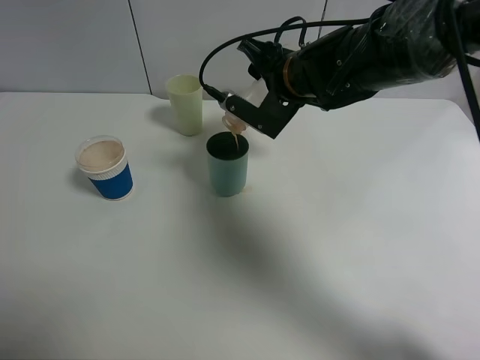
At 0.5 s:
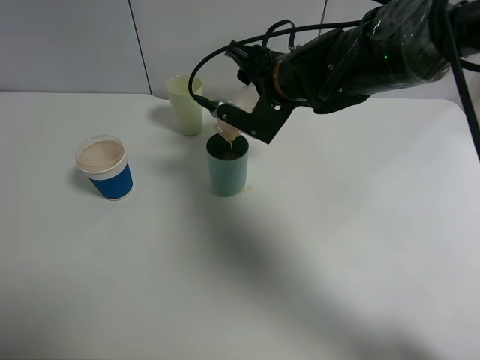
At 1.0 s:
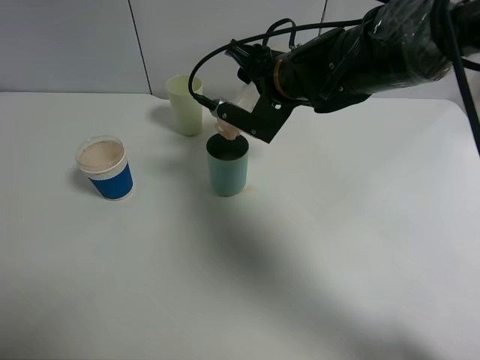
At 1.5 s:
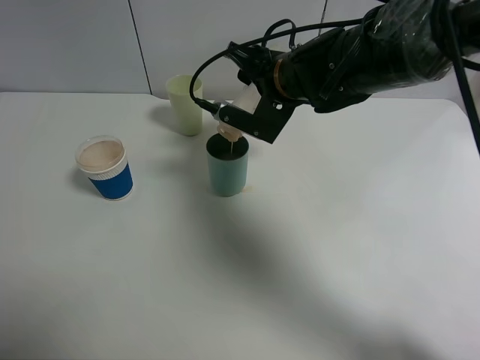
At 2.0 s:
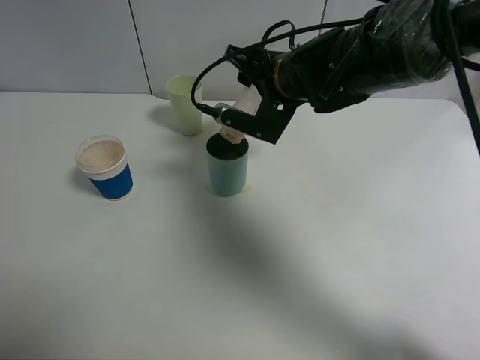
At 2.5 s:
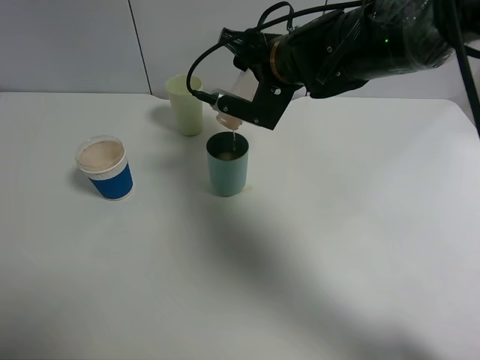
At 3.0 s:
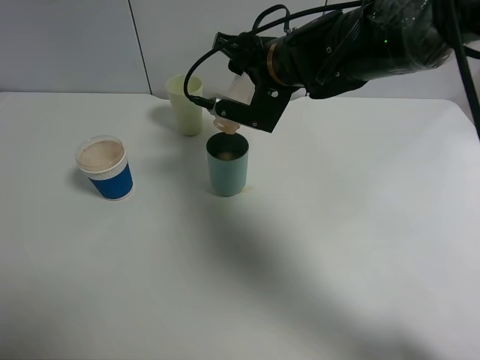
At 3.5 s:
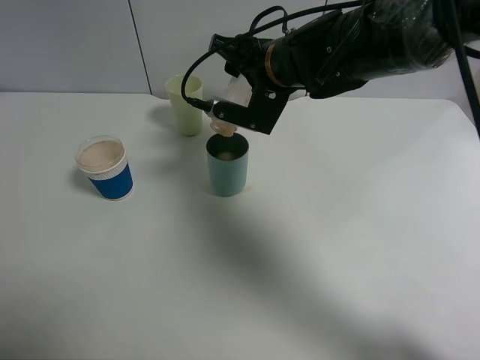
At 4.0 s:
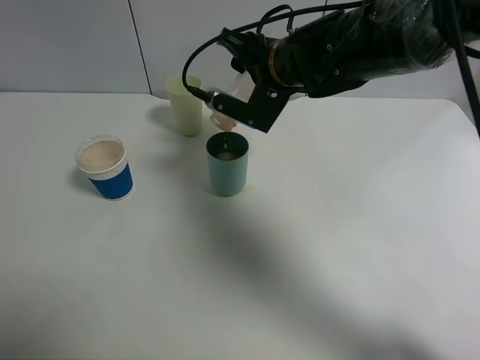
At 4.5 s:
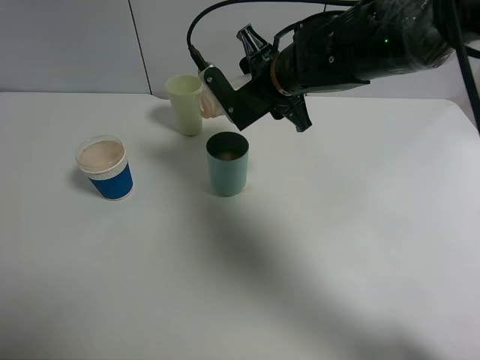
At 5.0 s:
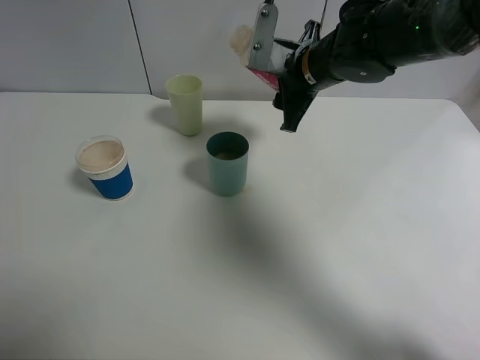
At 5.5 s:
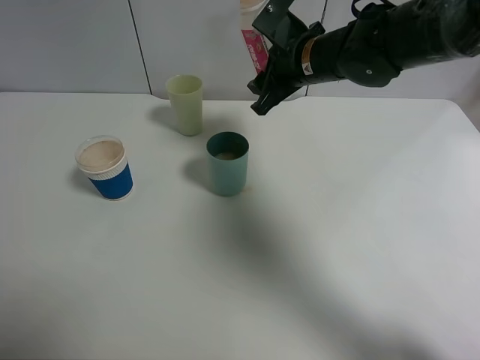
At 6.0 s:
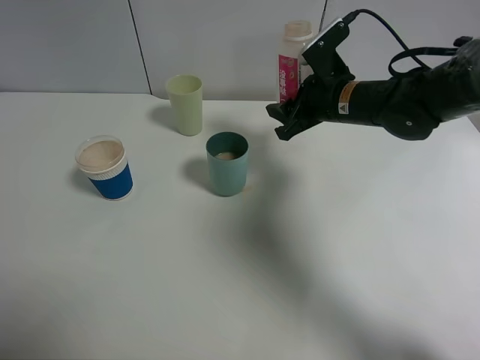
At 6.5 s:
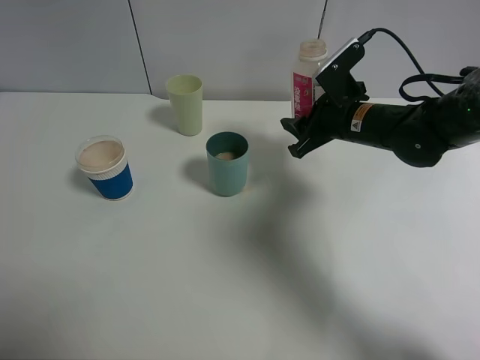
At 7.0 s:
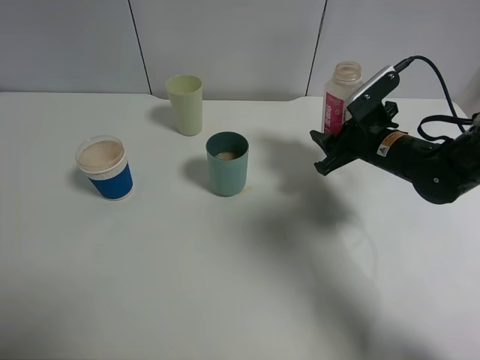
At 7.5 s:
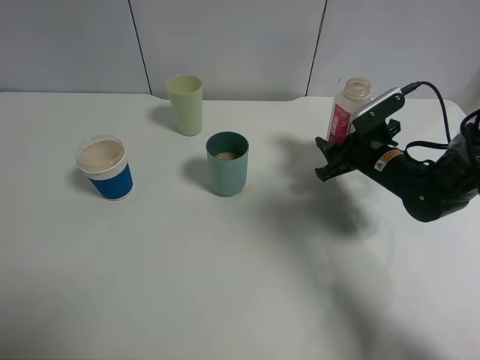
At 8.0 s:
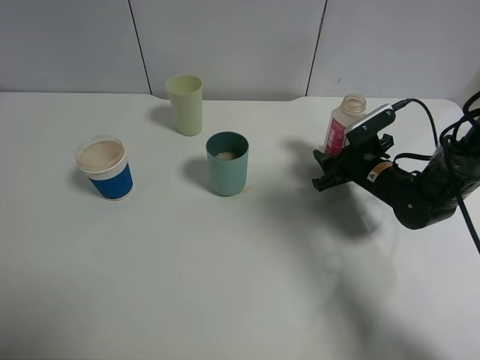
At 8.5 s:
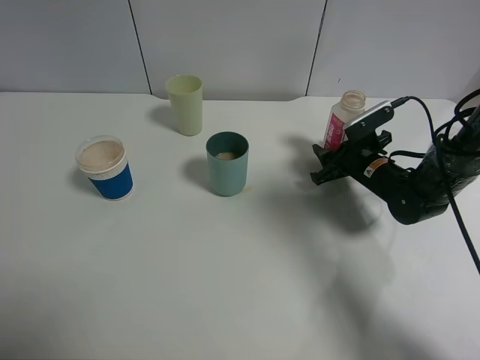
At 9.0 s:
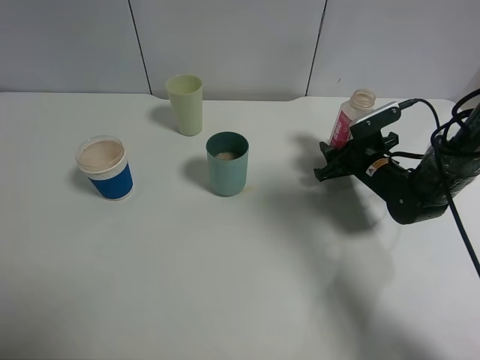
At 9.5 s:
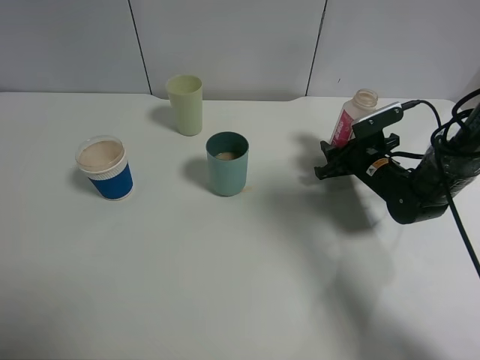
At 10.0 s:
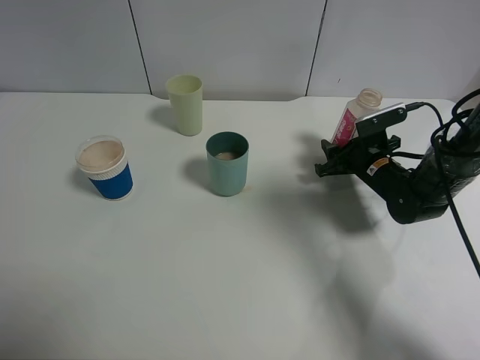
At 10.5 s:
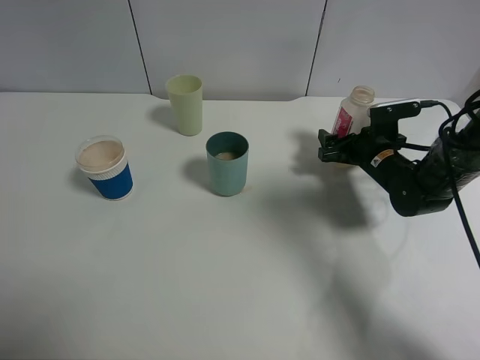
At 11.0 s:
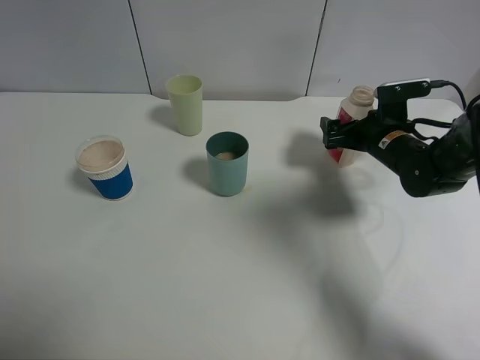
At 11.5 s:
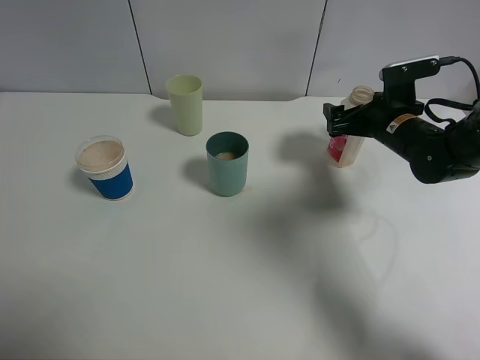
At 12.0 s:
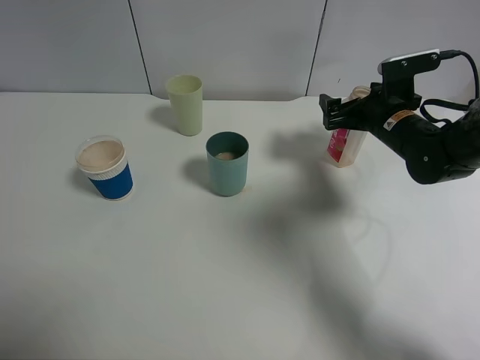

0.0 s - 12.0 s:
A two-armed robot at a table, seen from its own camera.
Task of the whole recording: use a clamp to hold the bottle of the drink, pour the beverage into a random cup, then clamp the cup containing the drink and pour the drink into another random cup.
Step, 0.0 s - 5.0 s: Pour the drink into the blue plastic cup with right gripper.
Step, 5.5 s - 11.5 s: Place the drink bottle on the table with right gripper.
0.0 s - 4.0 s: The grippers move only a little.
4.0 s - 6.0 s: The right gripper heads to the right and downward, covering roughly 10 cm.
6.0 s - 8.0 s: The right gripper heads downward and to the right, covering approximately 15 cm.
8.0 s - 10.0 s: The grippers move only a little.
10.0 s - 12.0 s: The right gripper travels upward by roughly 10 cm, and opens.

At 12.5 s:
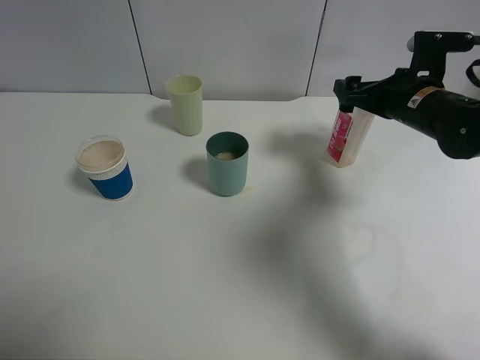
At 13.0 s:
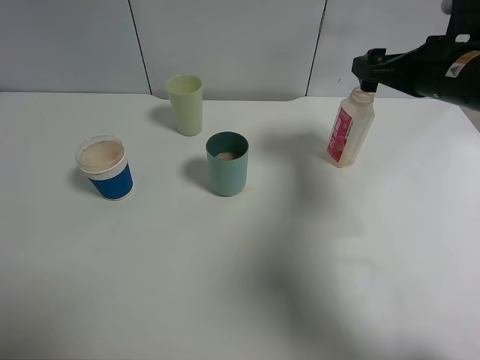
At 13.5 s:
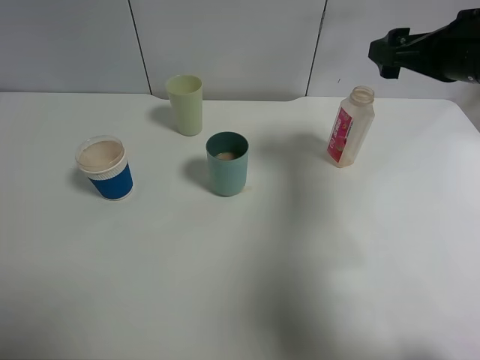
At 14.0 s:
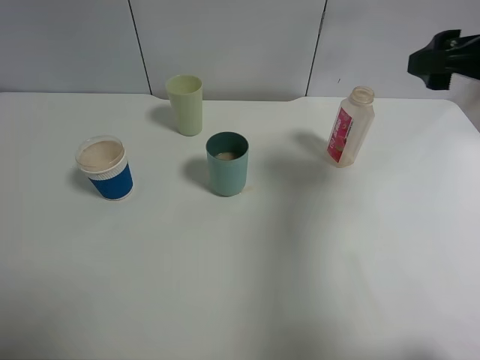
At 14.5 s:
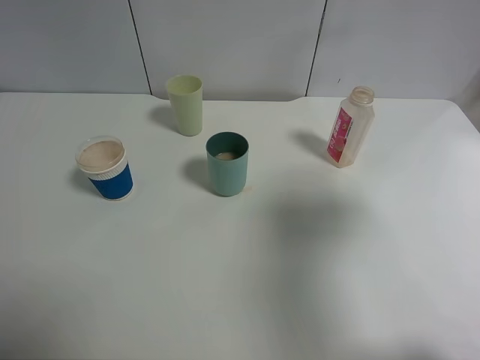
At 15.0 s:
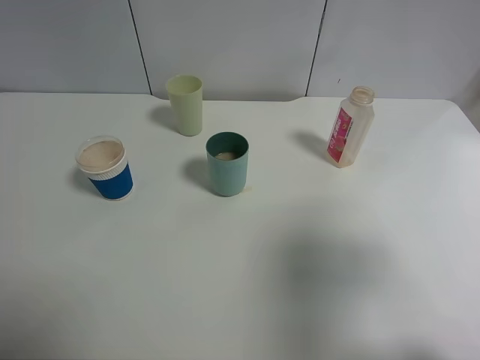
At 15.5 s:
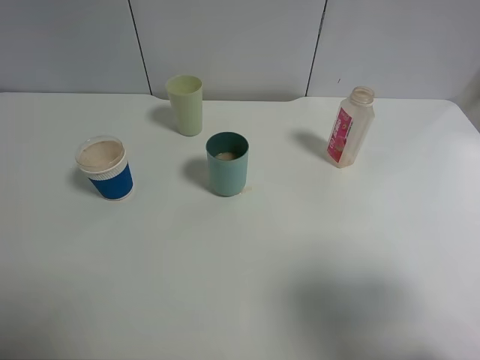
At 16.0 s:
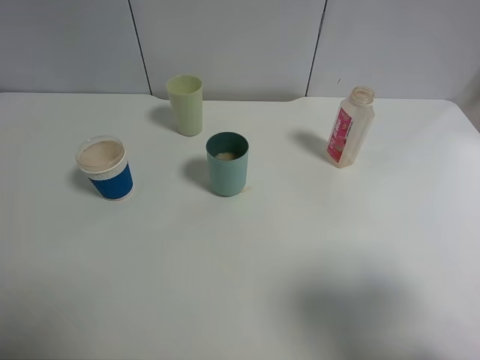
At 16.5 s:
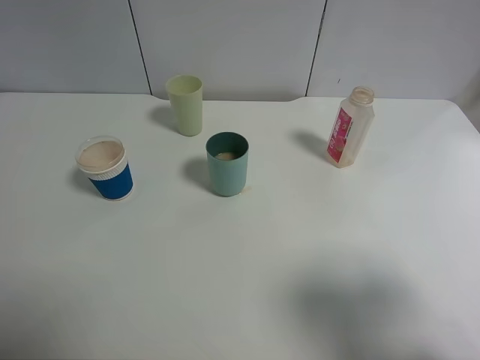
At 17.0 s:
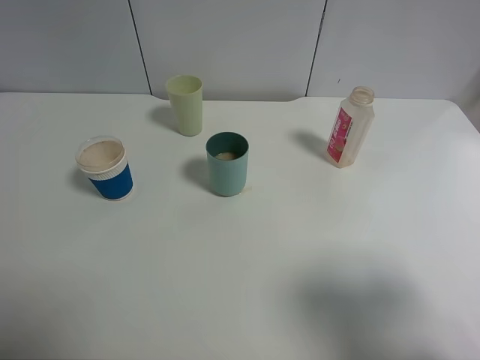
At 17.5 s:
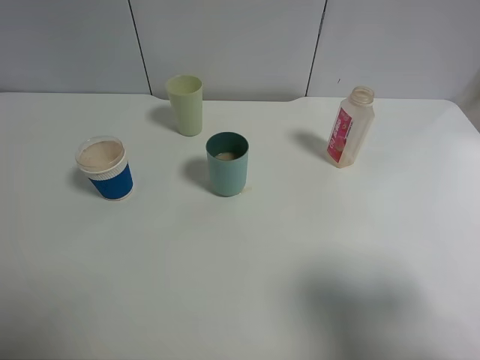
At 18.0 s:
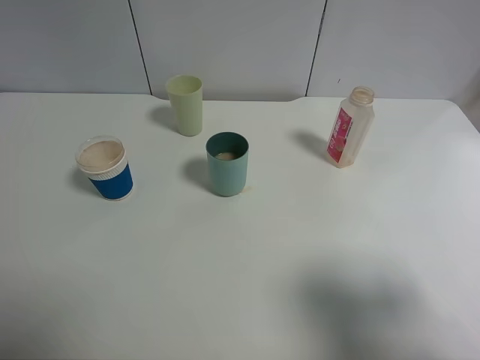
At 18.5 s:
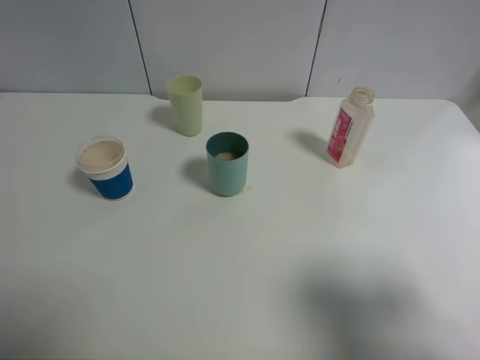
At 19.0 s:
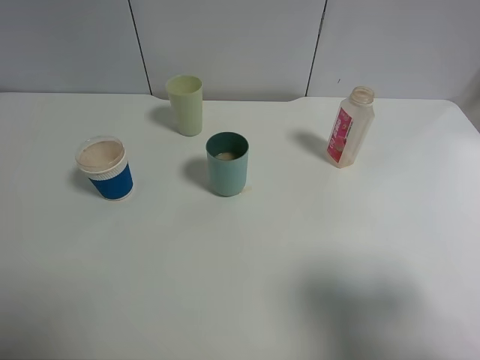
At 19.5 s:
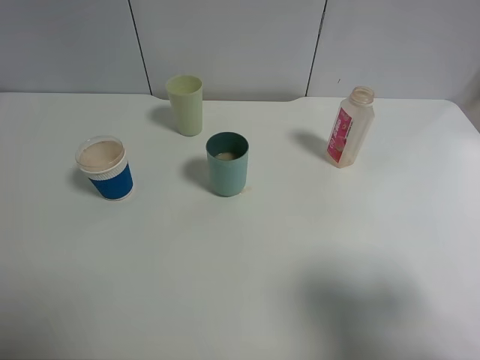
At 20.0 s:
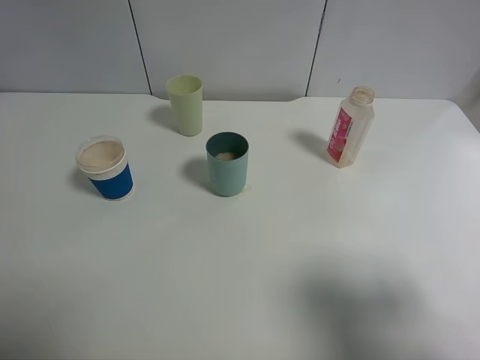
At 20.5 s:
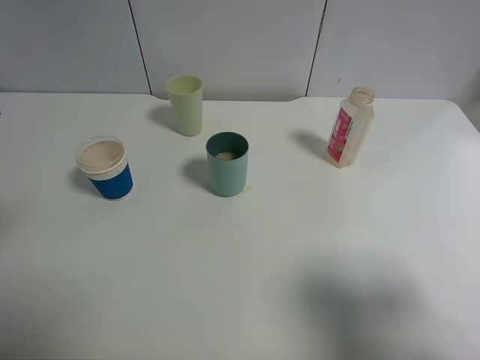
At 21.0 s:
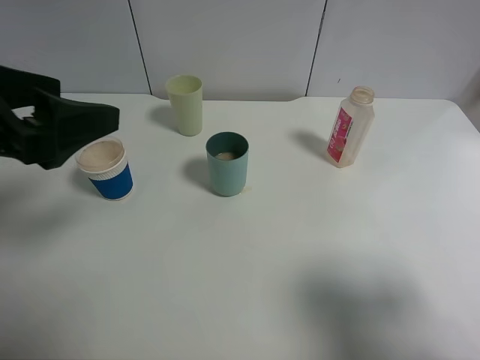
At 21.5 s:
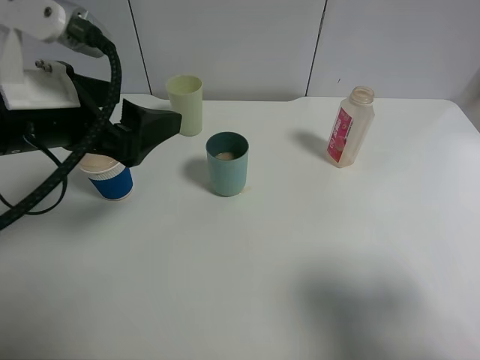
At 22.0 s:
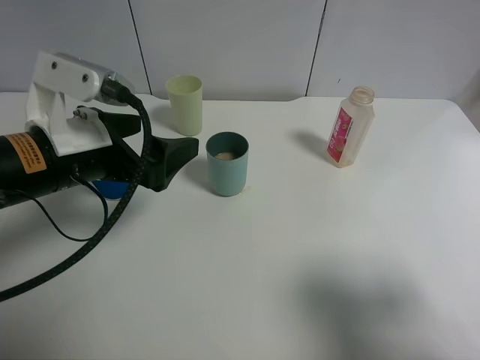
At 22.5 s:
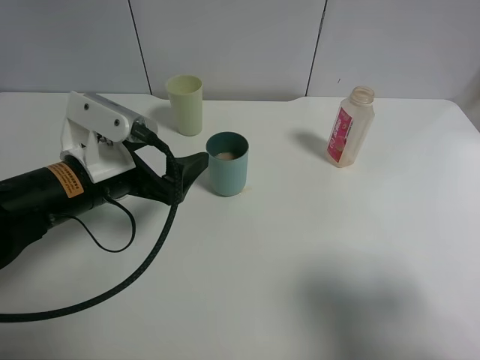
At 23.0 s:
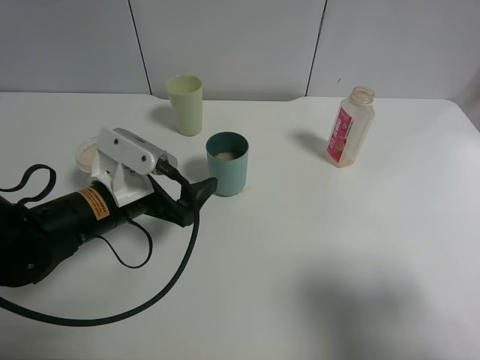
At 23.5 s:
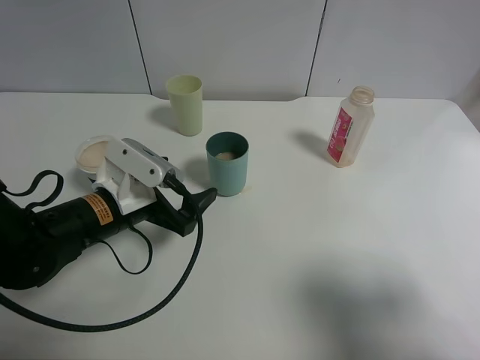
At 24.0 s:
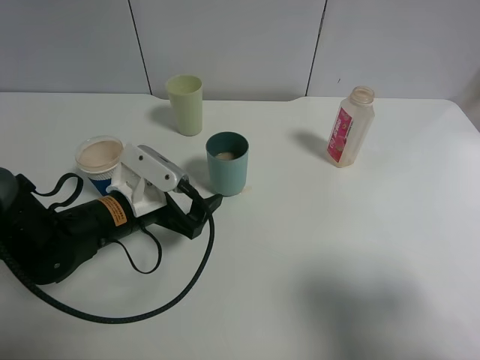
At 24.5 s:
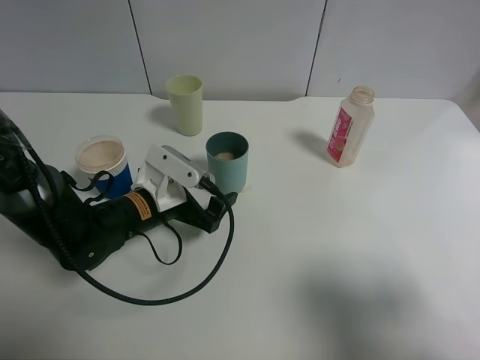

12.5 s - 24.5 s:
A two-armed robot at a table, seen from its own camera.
Task of the whole recording: use a clamp to hold the bottle of the drink, pour the beverage into a random cup, then clamp the cup containing the drink and pour the drink into another random cup.
12.5 s - 14.5 s: The right gripper goes approximately 25 cm backward and upward.
14.5 s - 16.5 s: The right gripper shifts approximately 15 cm backward and downward.
20.5 s - 22.5 s: The left gripper heads downward, to the right and forward, covering approximately 20 cm, and opens its fingers.
22.5 s - 24.5 s: The left gripper shifts approximately 10 cm downward.

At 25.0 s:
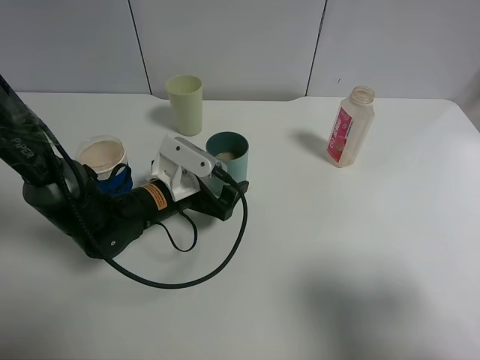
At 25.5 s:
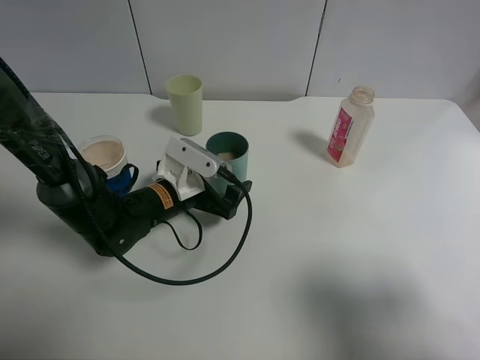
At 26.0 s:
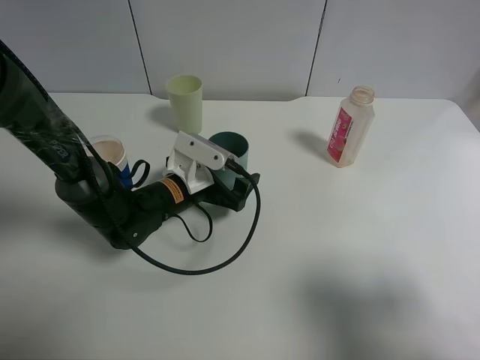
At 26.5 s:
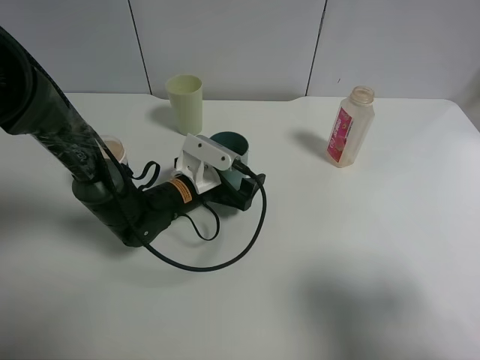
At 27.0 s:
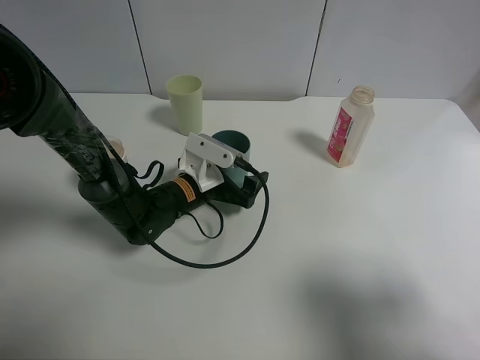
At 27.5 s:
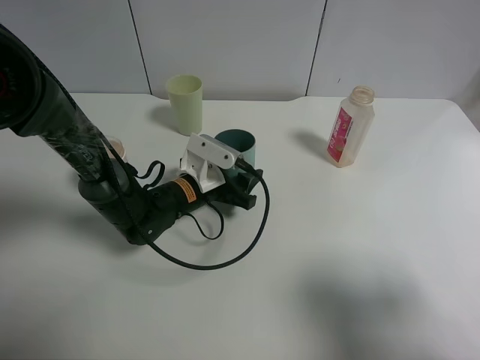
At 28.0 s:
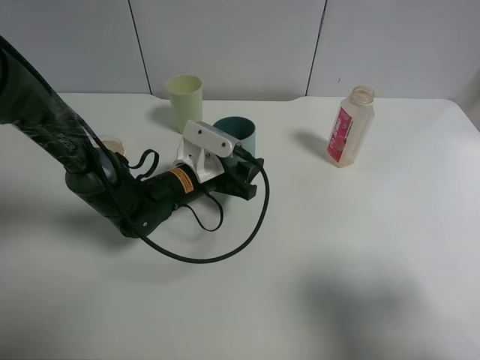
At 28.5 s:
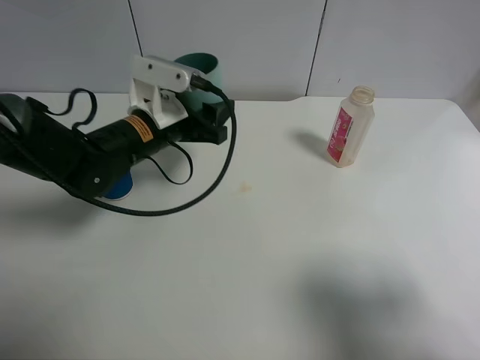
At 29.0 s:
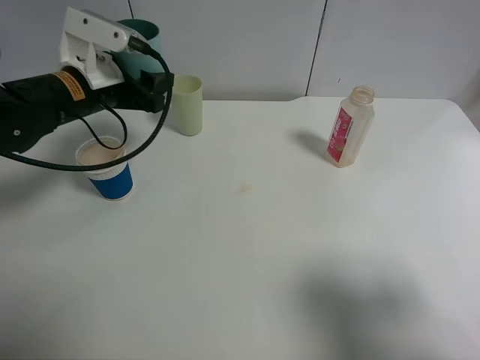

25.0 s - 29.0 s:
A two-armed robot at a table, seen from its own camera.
Task of the whole recording: use a clamp to hold the bottle of the drink, pour the beverage into a random cup, then clamp the cup containing the drink and pour the drink into another random cup.
Step, 25.0 s - 28.0 s: Pick up the blue plastic cup bottle with left gripper.
25.0 s - 27.0 s: The left gripper changes place by about 5 cm.
27.0 s - 29.0 s: The left gripper shifts roughly 20 cm upward and to the left, and closes up.
